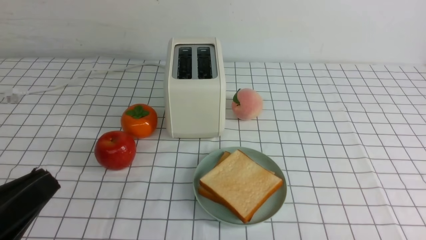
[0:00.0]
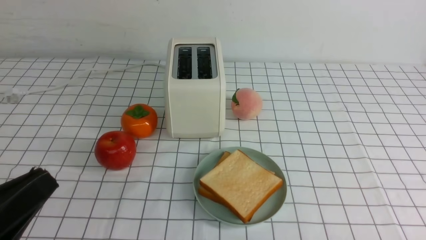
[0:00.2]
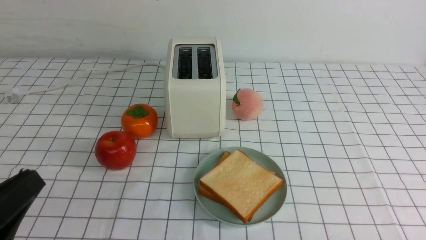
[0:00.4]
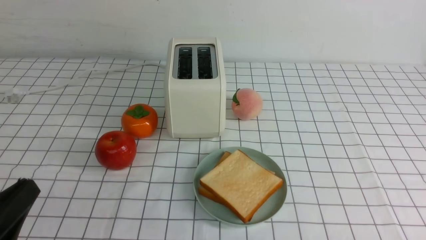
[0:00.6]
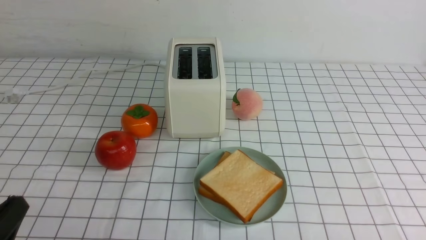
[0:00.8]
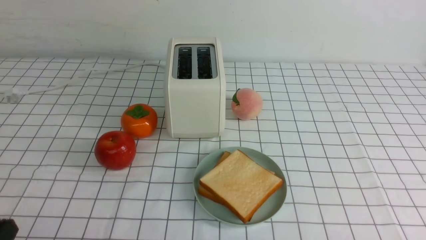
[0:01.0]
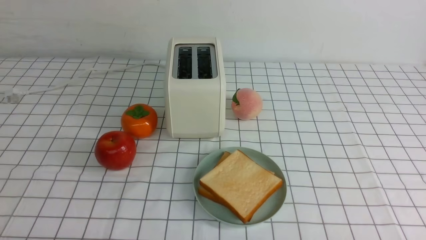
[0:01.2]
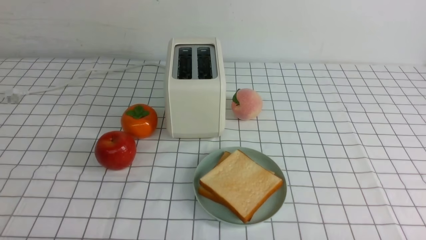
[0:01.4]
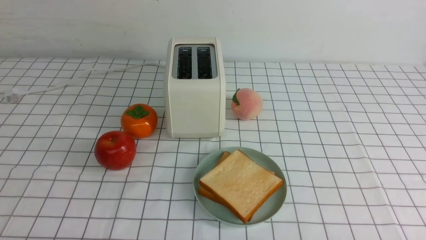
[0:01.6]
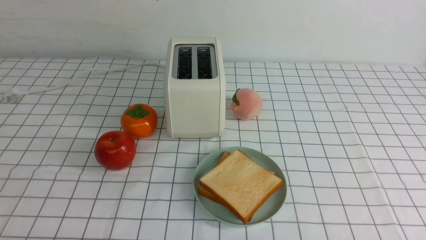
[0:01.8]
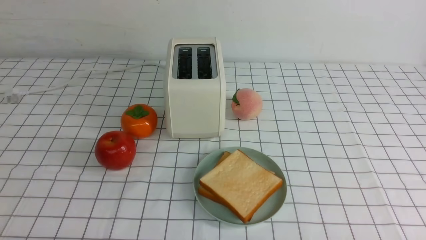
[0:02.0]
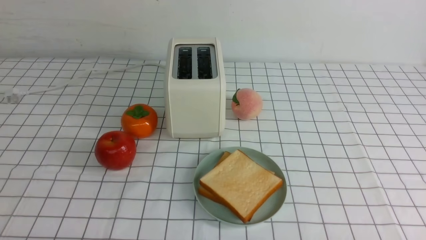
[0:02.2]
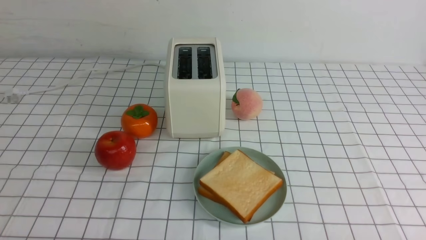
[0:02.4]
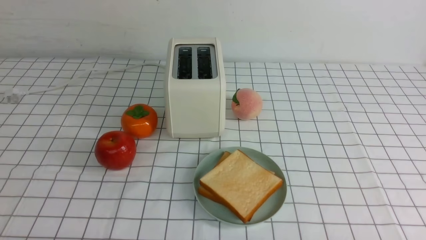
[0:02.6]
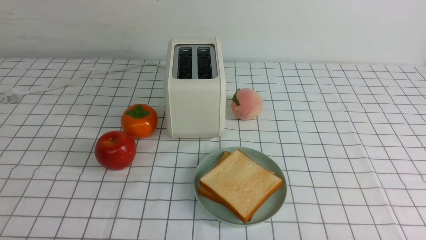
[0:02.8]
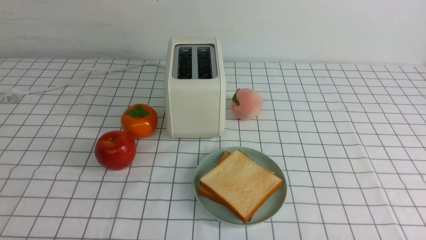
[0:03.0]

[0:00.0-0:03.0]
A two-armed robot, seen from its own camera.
Task of the whole recording: take toasted bread from bread machine on white checkered table place on plate.
0:00.0 to 0:01.6: The left gripper is displaced downward by approximately 10 cm.
0:01.6 to 0:03.0: Both grippers stay about where they are.

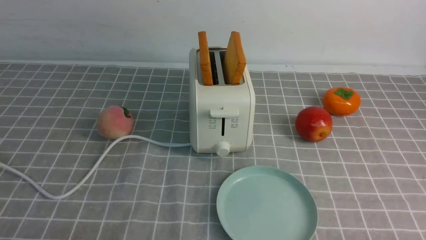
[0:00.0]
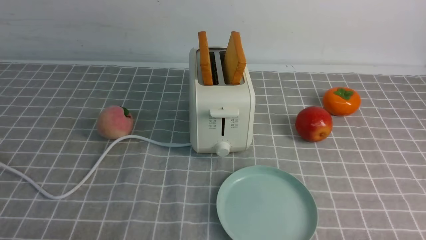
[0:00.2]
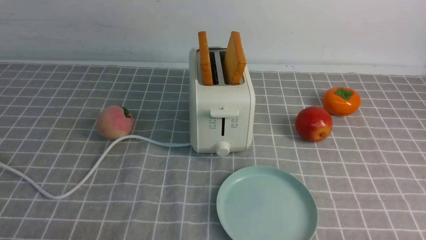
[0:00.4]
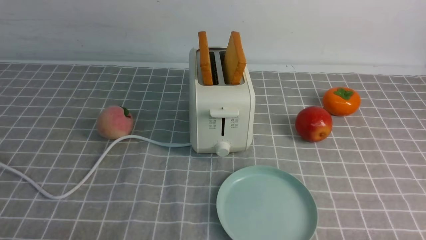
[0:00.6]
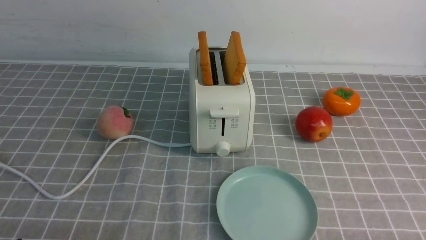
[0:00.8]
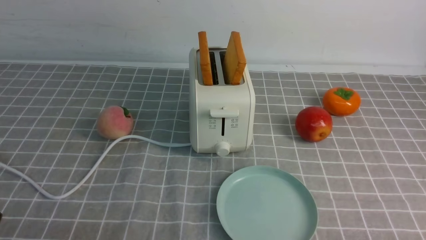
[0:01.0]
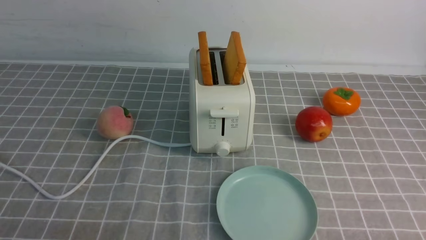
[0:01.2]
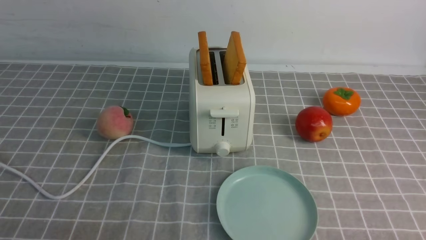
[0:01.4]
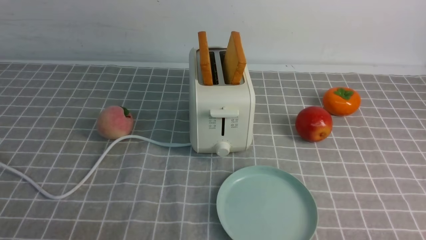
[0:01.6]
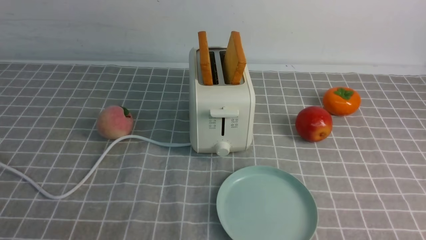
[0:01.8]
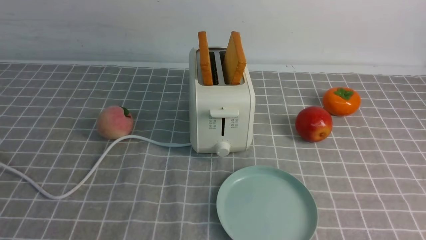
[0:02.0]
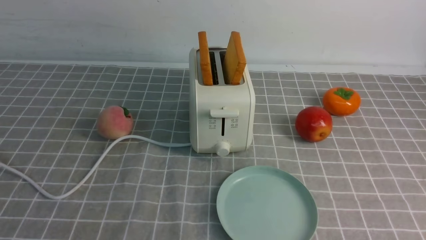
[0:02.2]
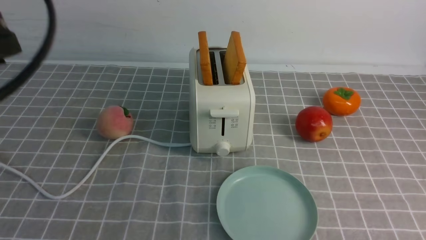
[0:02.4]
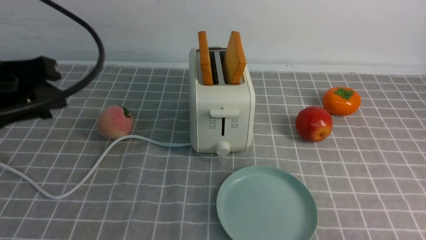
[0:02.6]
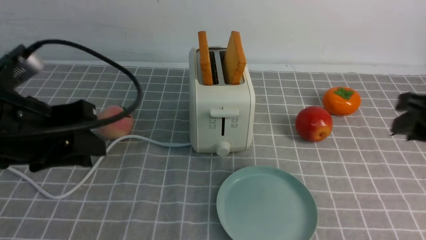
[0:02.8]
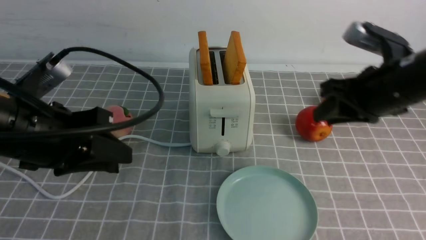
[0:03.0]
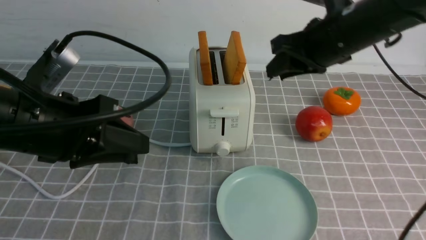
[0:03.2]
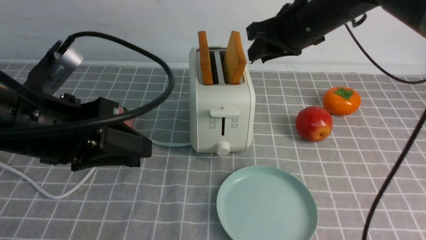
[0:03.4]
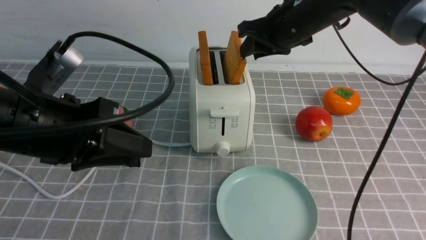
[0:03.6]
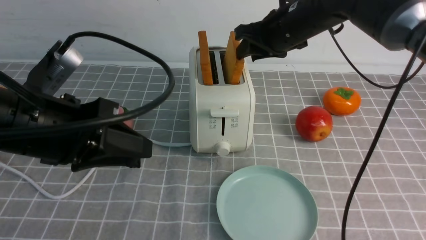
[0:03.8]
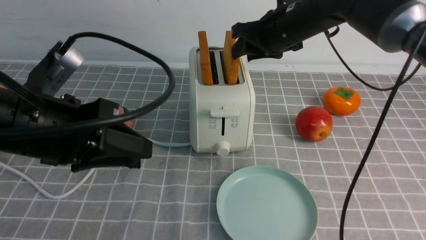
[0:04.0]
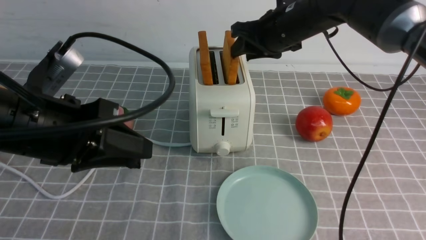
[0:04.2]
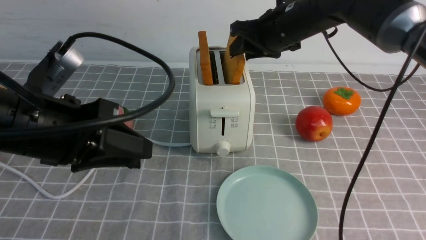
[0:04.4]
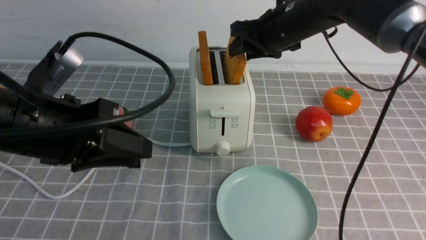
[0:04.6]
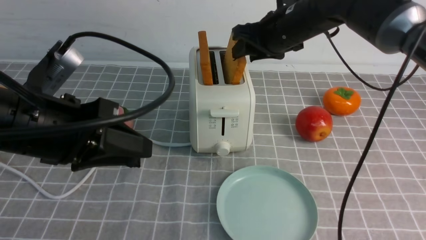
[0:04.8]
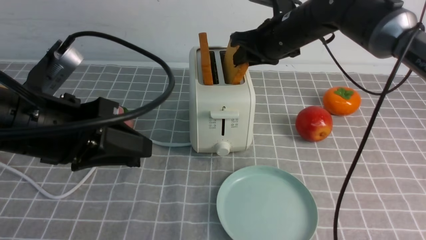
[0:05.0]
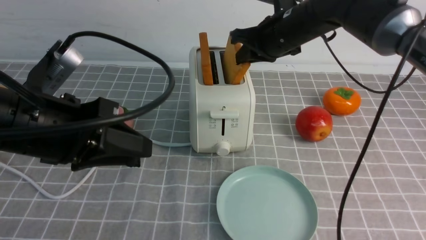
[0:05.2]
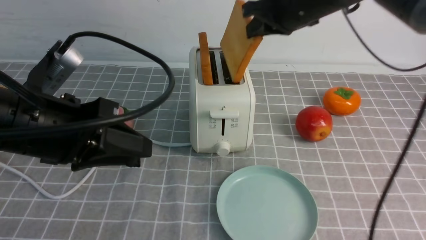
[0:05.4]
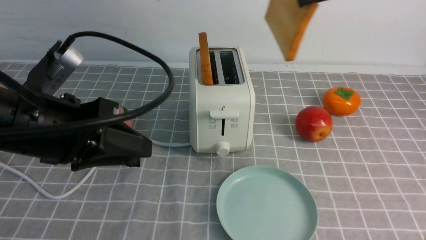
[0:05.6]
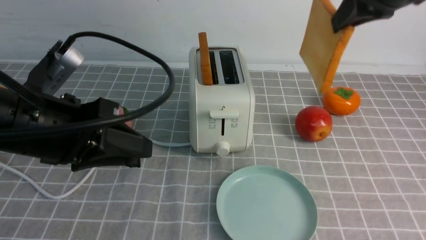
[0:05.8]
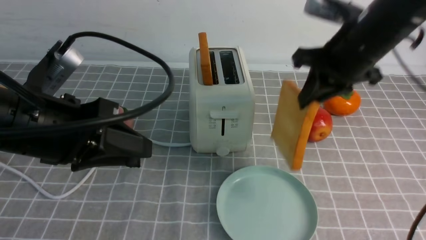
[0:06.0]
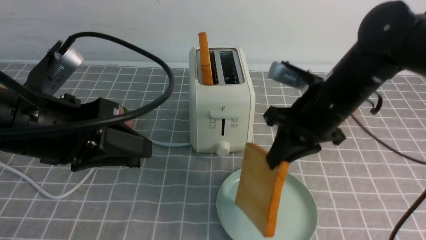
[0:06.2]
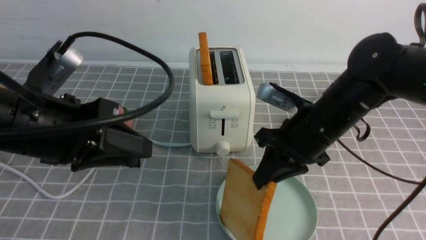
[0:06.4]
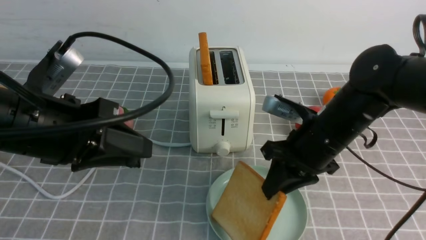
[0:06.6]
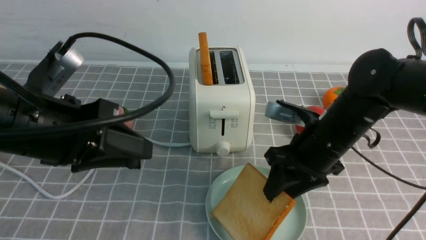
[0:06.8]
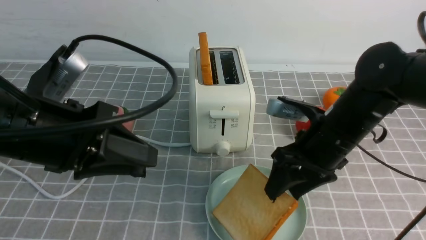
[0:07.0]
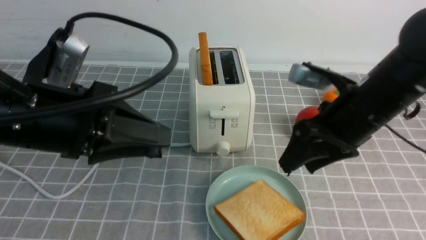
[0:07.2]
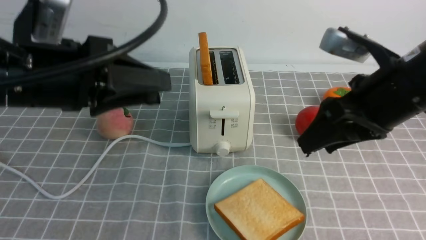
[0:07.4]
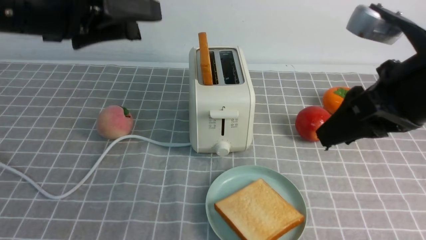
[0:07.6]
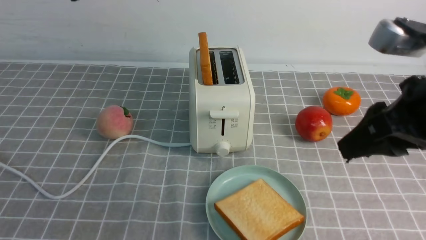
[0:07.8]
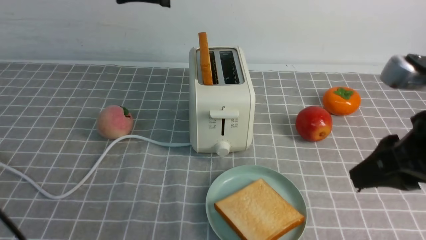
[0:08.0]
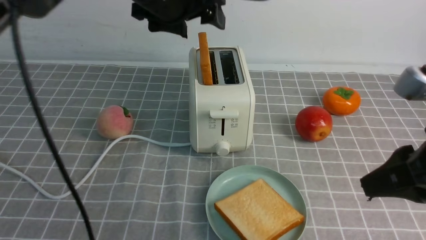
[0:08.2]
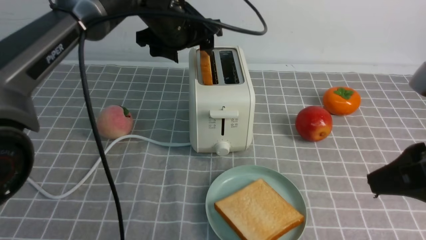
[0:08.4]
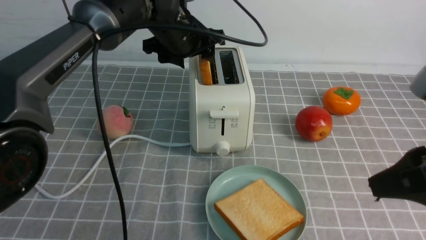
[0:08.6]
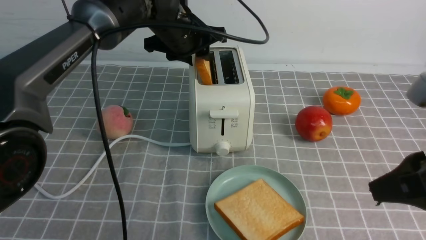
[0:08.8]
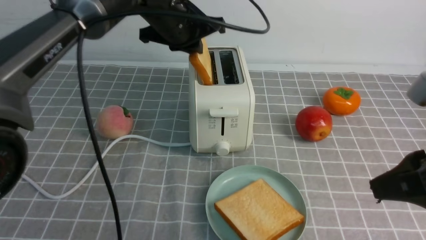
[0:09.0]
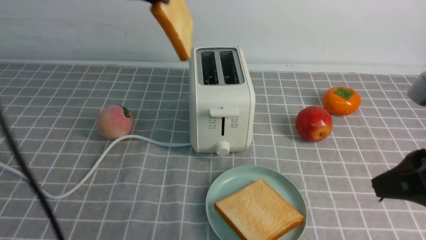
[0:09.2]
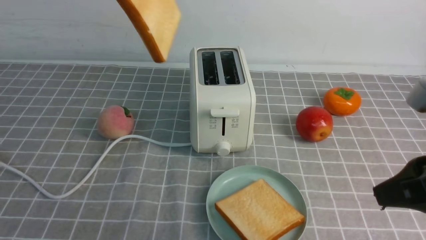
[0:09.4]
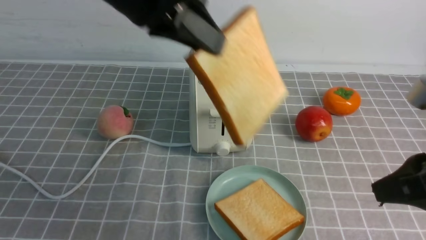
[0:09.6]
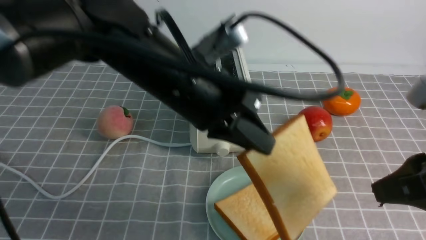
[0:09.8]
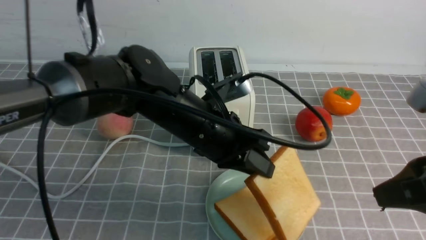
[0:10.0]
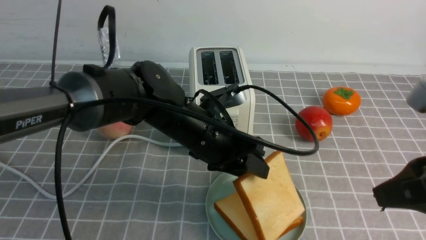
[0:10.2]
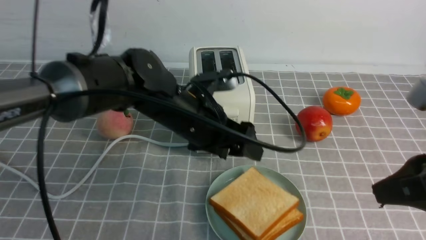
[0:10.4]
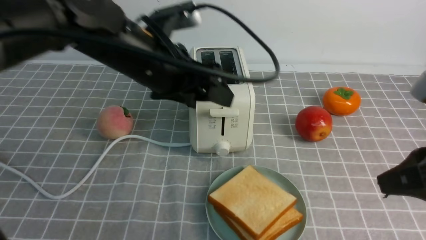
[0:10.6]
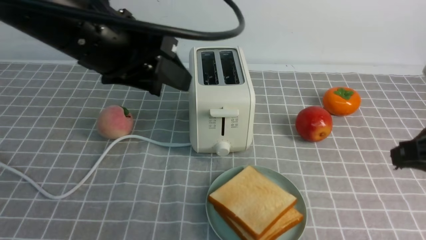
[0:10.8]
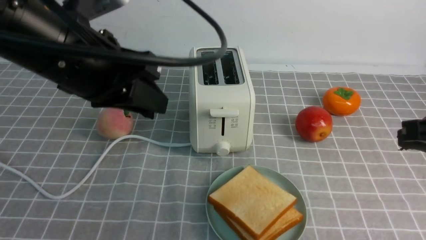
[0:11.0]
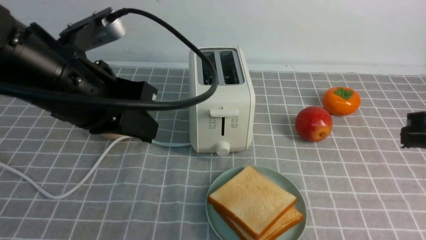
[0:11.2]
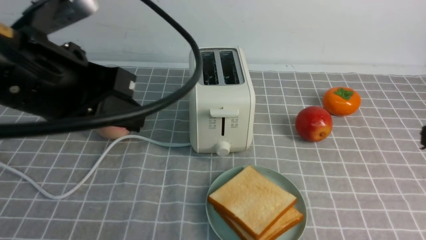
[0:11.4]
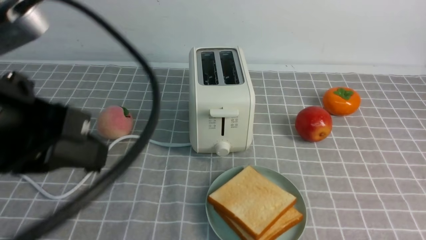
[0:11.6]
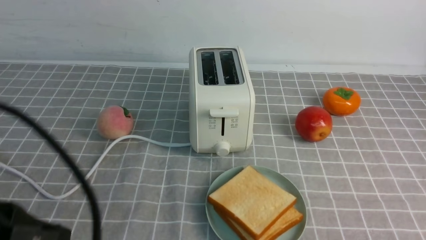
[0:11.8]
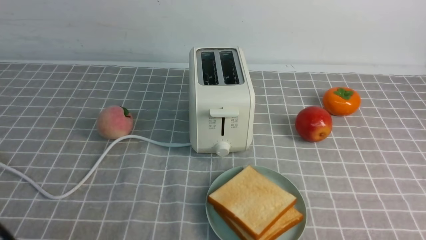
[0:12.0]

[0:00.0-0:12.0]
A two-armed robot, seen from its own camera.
Task of the whole recording: take toasted bread from bread machine on grey coffee table place on plate.
Step, 0:00.0 to 0:05.4: use the right arm to take out a slice of bread.
Step, 0:05.6 to 0:07.4: use the right arm to put a slice of bread into the plate.
Step, 0:07.6 to 0:09.2: use the left arm to take out a slice of bread.
Step, 0:09.4 to 0:10.6: use the left arm to put a slice of bread into the empty plate.
0:01.6 to 0:03.0: The left gripper heads forward and upward, covering approximately 20 cm; the right gripper moves forward and upward, some 30 cm.
0:03.0 to 0:04.4: The right gripper goes about 15 cm forward and to the left.
0:04.4 to 0:06.0: The right gripper heads backward and to the right, covering approximately 10 cm, travels upward and back again, approximately 10 cm each way, and closes up.
0:06.0 to 0:07.6: The left gripper heads upward and forward, covering approximately 10 cm, and opens. The right gripper goes some 10 cm backward, reaches approximately 10 cm downward, then returns, and opens up.
0:07.6 to 0:09.0: The left gripper shifts approximately 15 cm forward and to the right, and closes up. The right gripper moves backward, some 5 cm.
0:09.0 to 0:10.4: The left gripper heads downward and backward, covering about 15 cm, and opens its fingers.
0:10.4 to 0:12.0: The right gripper heads downward, backward and to the right, covering about 15 cm, and closes up. Meanwhile the left gripper goes roughly 30 cm backward and to the left, and closes.

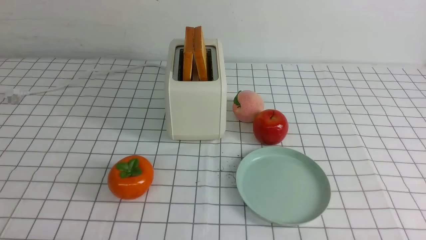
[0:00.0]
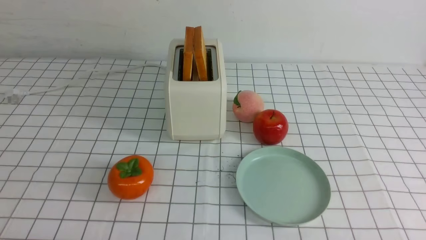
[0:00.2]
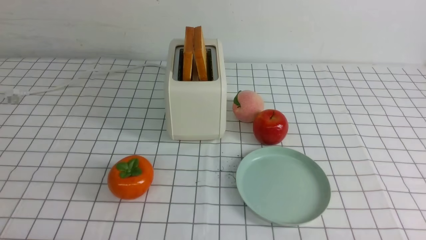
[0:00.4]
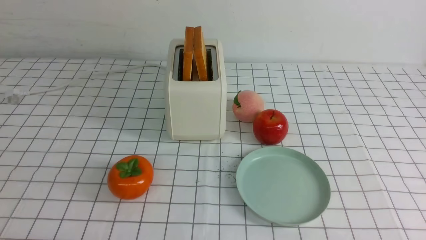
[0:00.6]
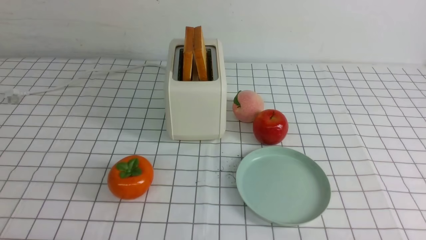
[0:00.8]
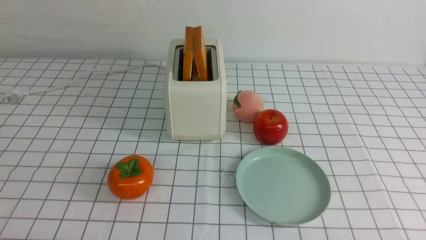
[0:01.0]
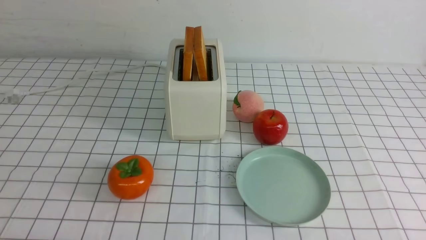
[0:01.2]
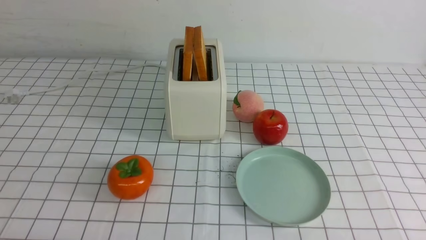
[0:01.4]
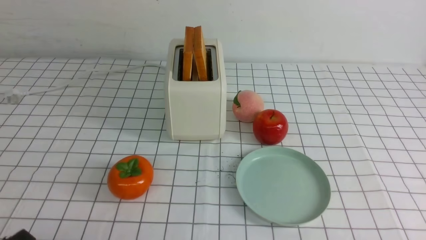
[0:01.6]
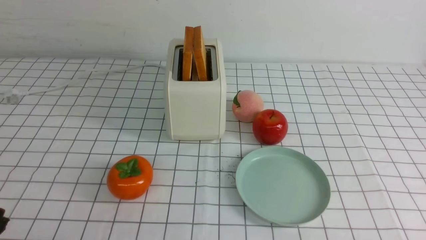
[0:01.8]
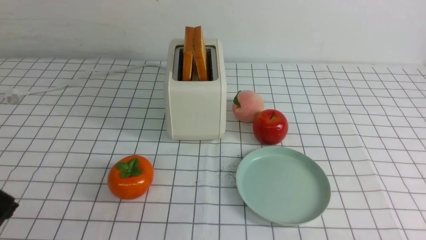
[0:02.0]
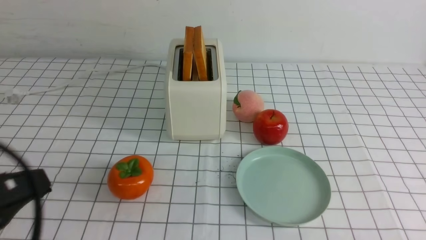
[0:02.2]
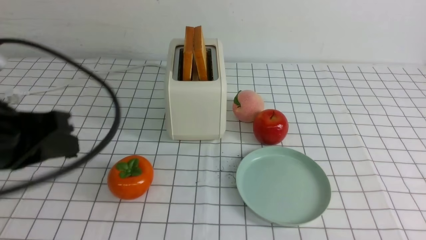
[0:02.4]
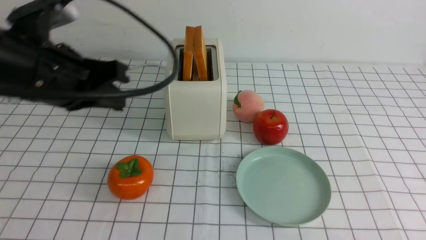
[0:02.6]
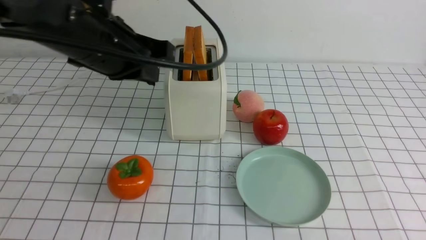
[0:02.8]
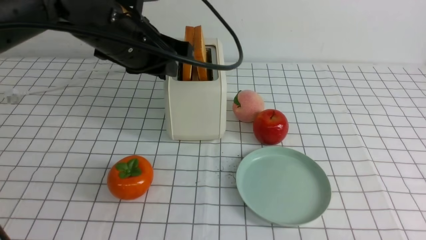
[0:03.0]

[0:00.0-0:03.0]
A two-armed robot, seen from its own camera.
Task of the whole recording: take toasted bread from bread machine on white checkered table place on plate.
0:01.6 to 0:03.0: The left gripper heads forward, upward and to the right, covering approximately 35 cm, and closes and opens again.
